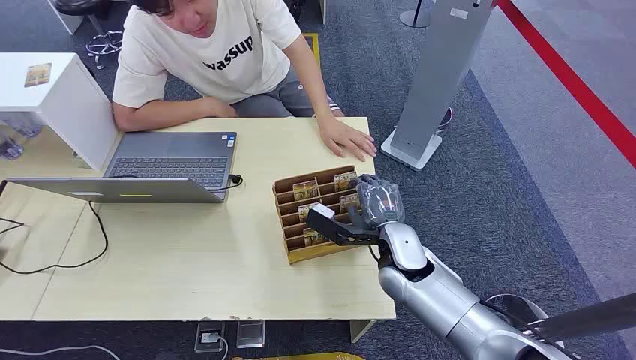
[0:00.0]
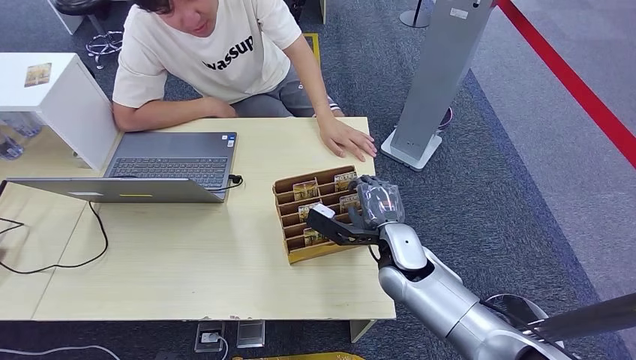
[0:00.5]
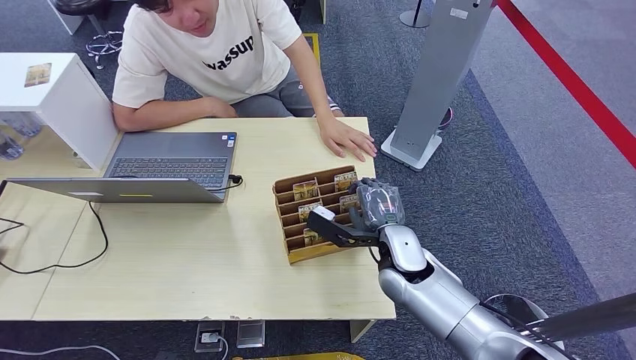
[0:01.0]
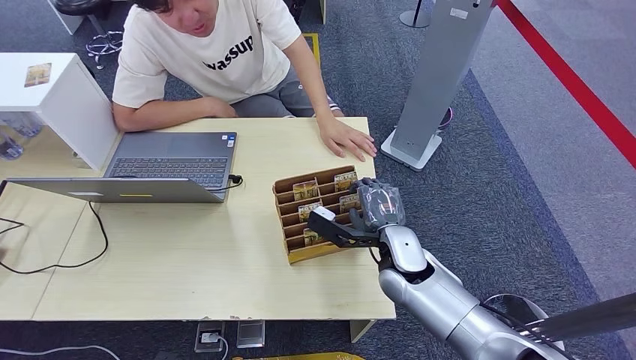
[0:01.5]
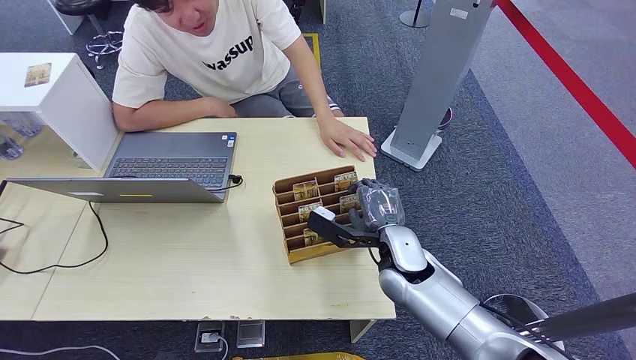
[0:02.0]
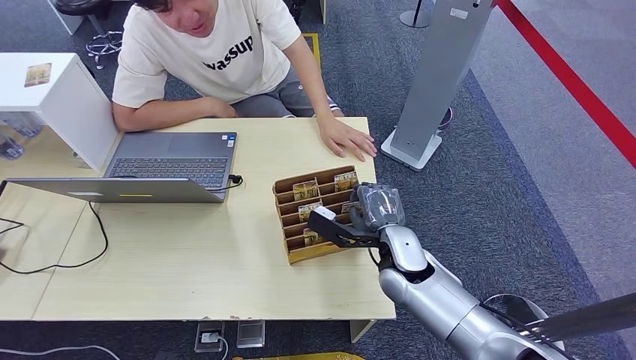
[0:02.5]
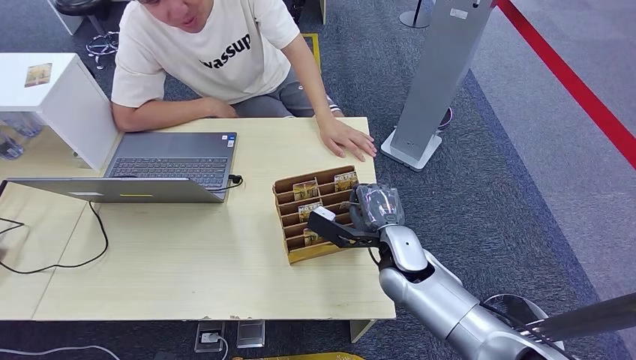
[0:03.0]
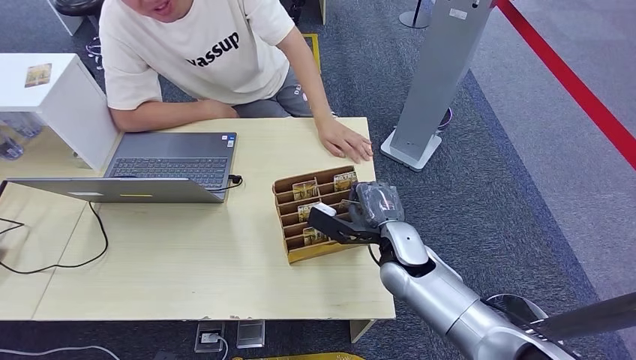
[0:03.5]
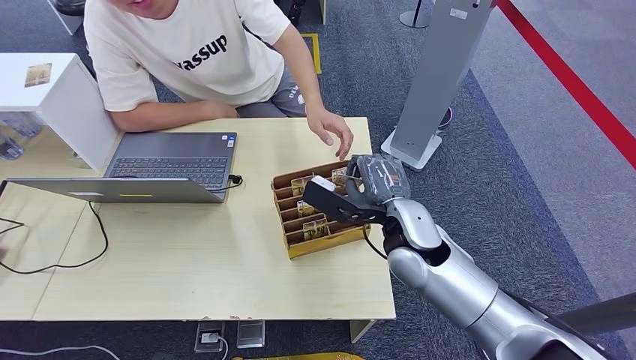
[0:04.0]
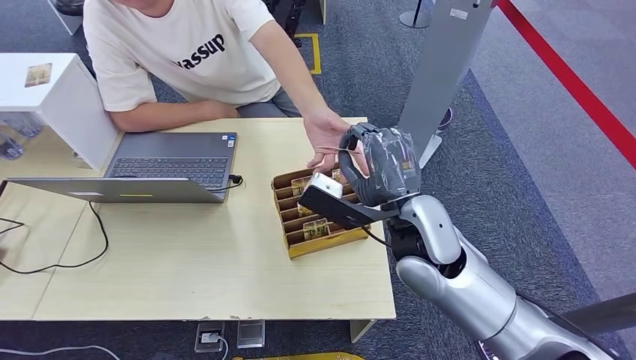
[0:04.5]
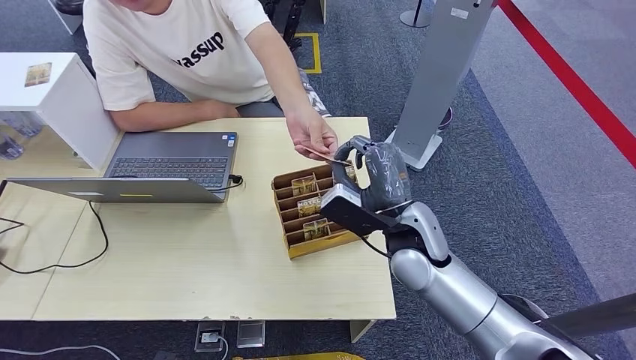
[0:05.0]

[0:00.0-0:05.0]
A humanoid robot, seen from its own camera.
Step, 0:00.0 to 0:03.5: Pick up the room card from the card holder.
Step, 0:04.5 to 0:05.0: Hand the room card to the target.
0:02.5 to 0:05.0: The right hand is displaced upward by roughly 10 cm.
